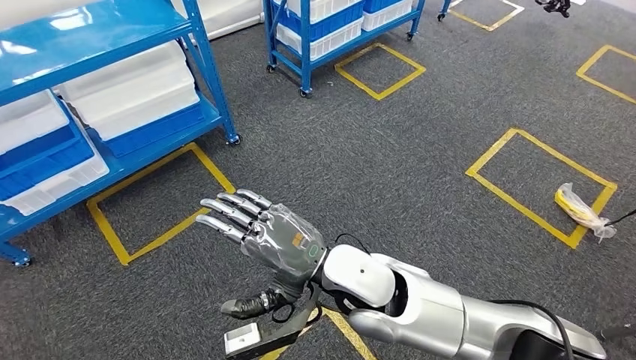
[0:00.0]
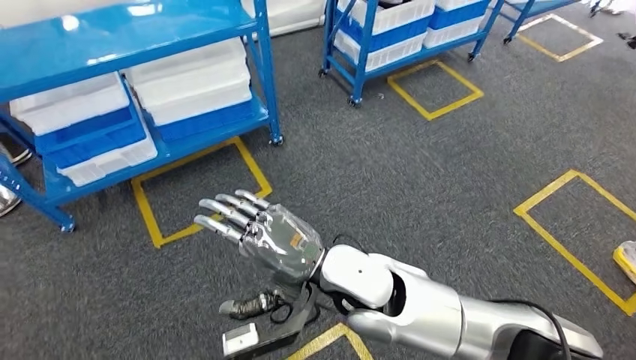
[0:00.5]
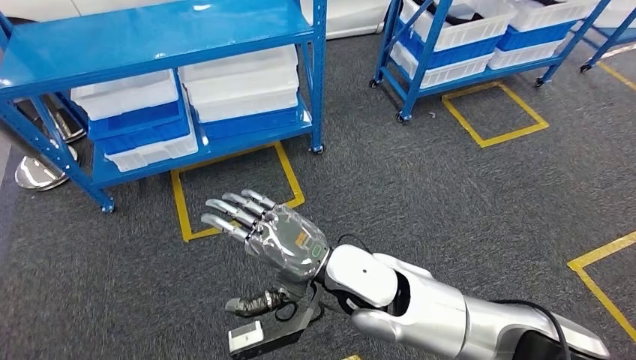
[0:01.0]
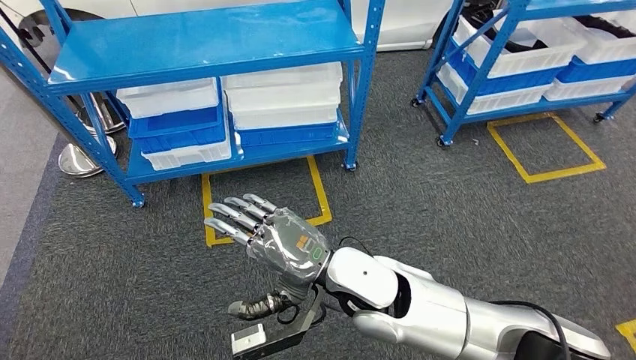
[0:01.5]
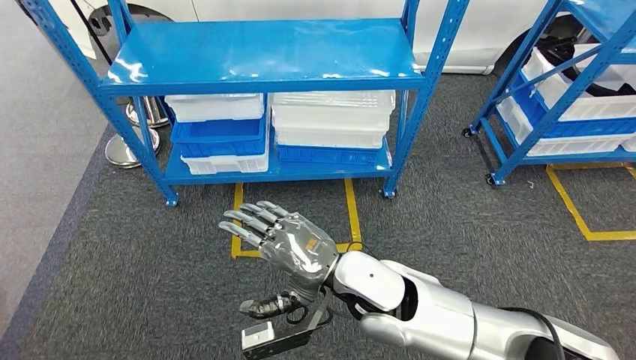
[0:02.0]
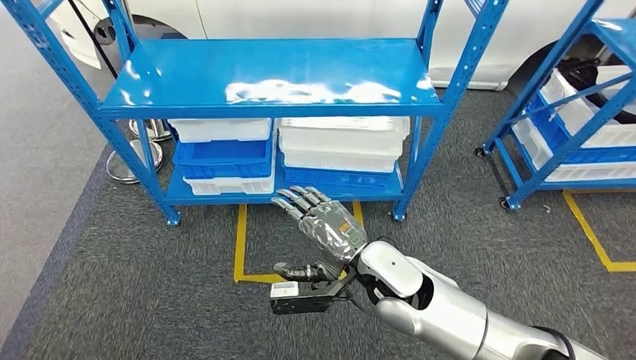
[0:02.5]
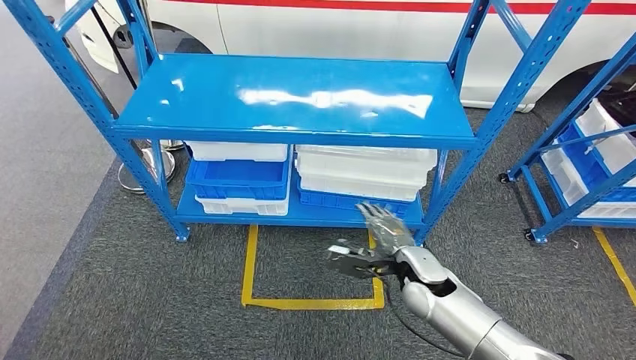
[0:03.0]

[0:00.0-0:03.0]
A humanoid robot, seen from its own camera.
Step, 0:00.0 to 0:03.0: Return to the initial position at the shelf.
